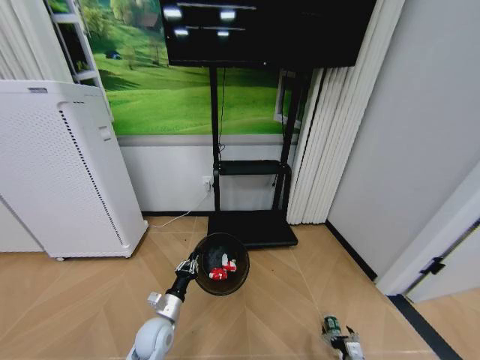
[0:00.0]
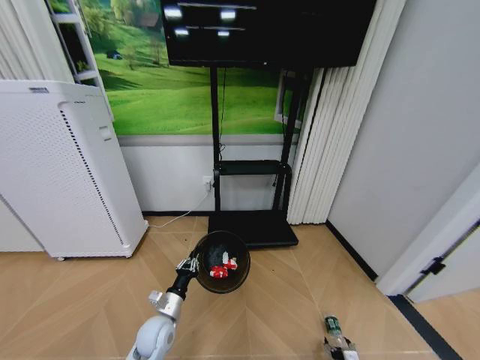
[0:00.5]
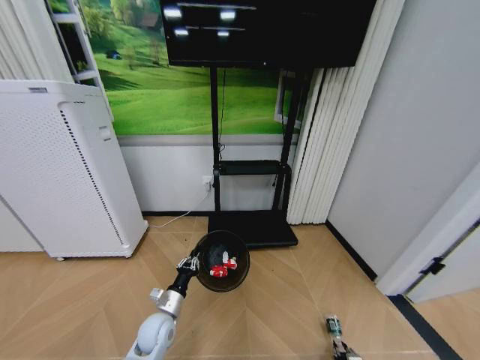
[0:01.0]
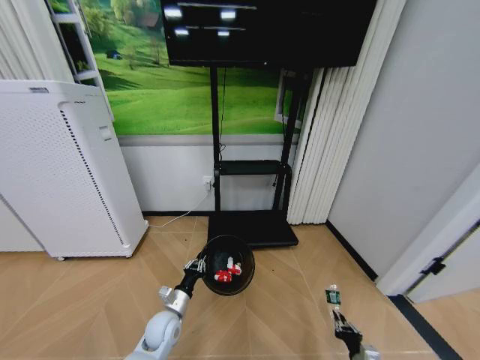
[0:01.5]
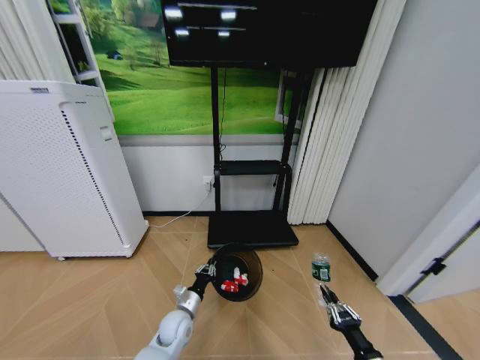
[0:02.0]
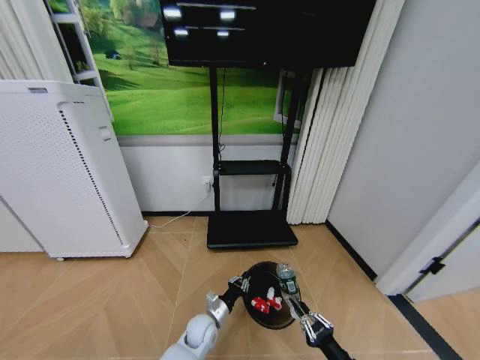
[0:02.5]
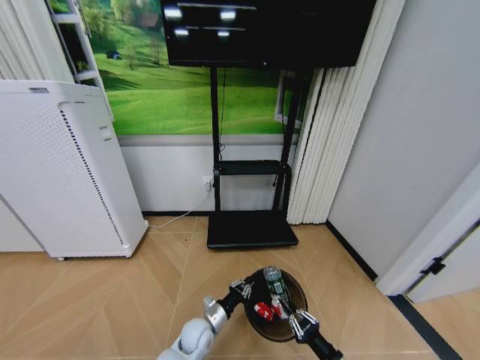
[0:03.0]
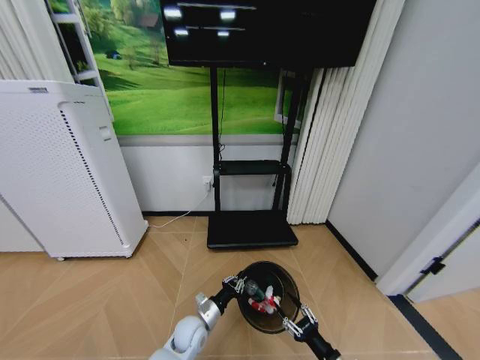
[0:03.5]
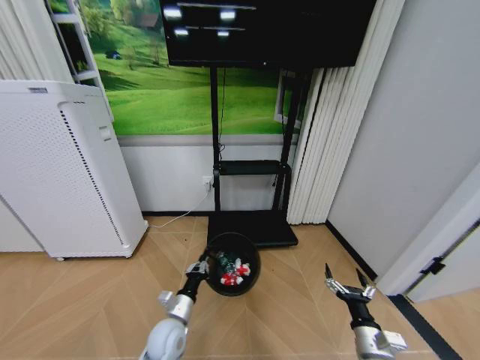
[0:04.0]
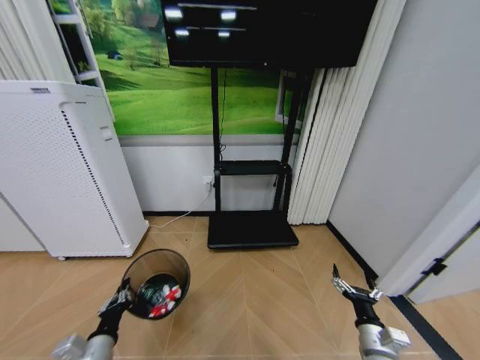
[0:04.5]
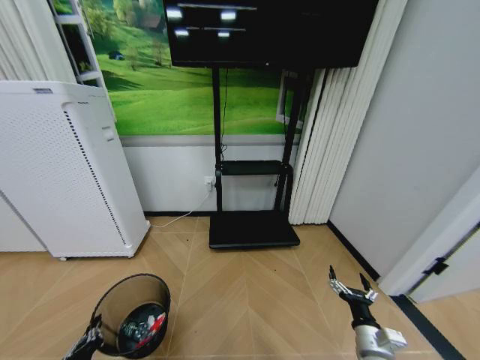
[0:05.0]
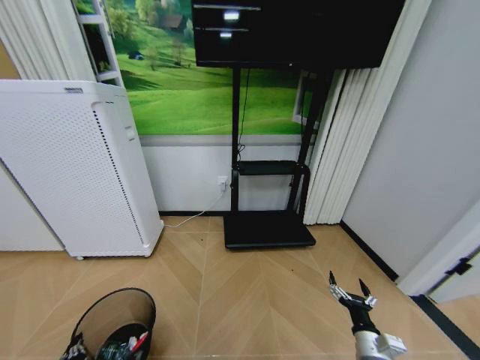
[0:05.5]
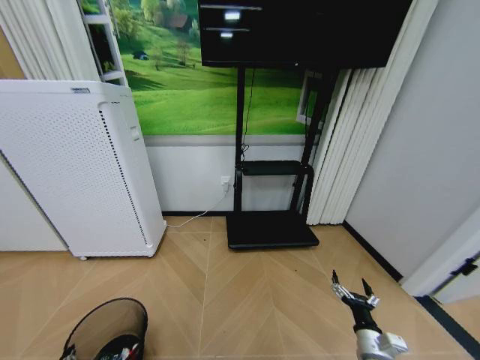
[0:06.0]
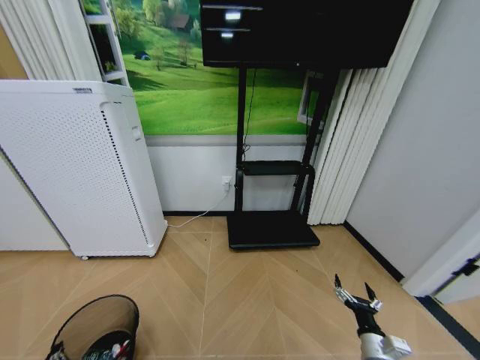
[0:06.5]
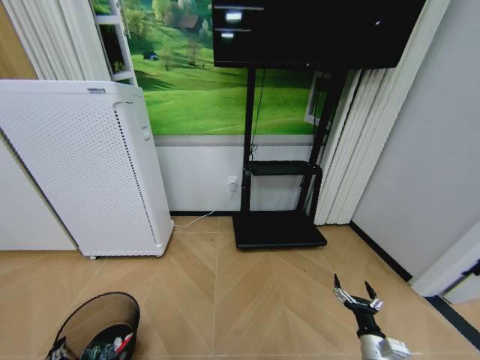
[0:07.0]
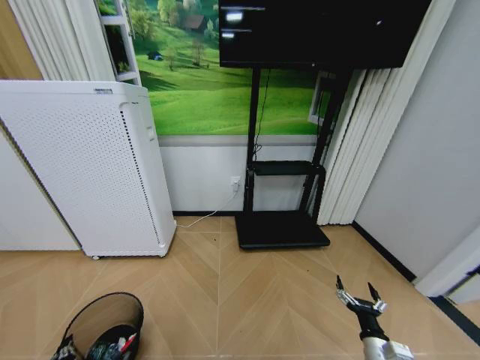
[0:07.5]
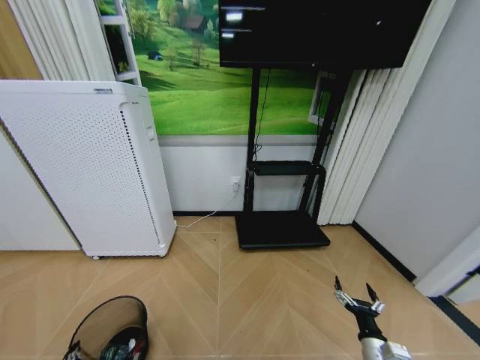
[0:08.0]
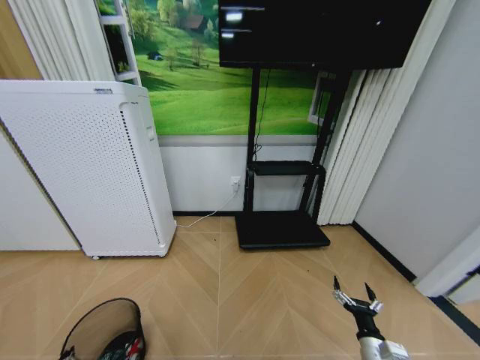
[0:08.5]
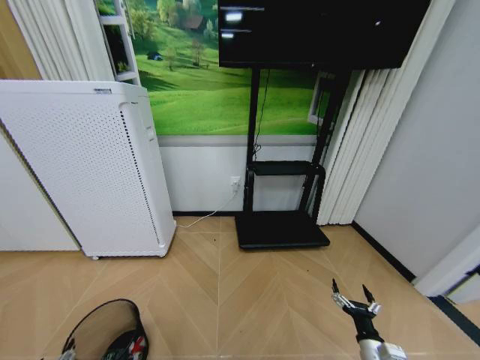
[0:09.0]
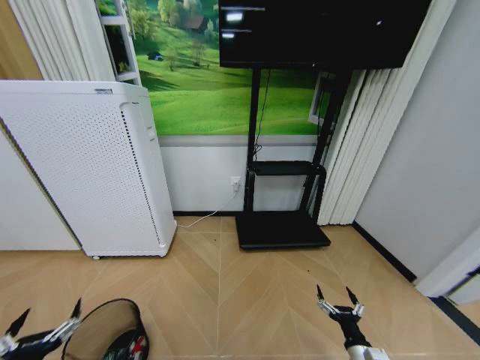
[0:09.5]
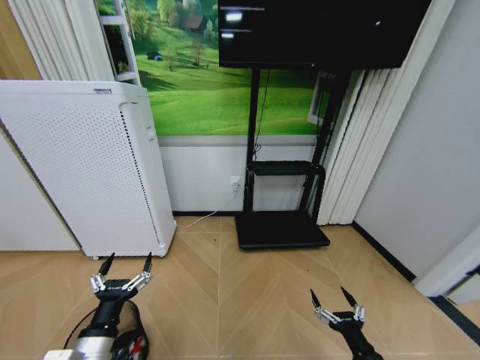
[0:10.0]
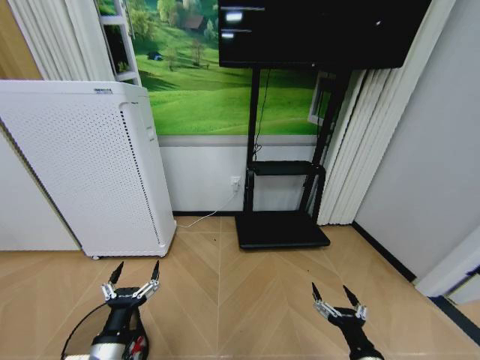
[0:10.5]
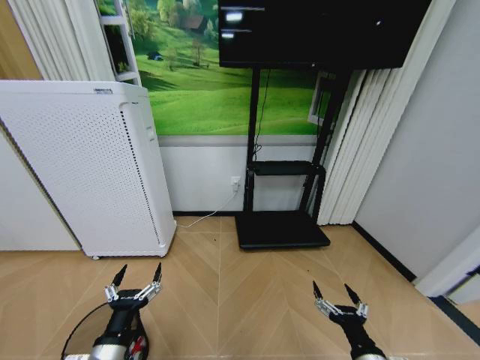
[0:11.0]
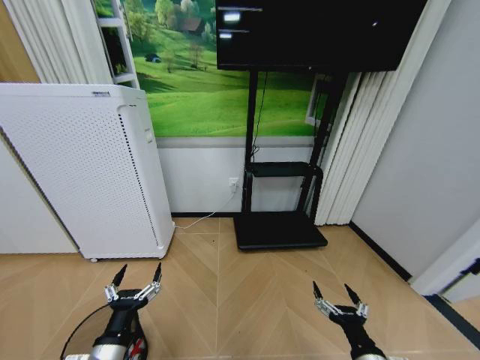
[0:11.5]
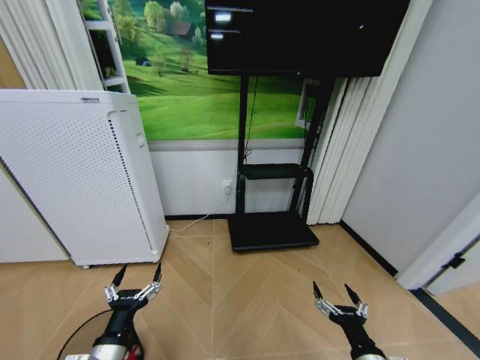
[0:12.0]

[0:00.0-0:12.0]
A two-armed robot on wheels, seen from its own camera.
Task of the whole recording: Pick up the trash bin and place the garbage on the floor into it.
0:00.0 to 0:02.0: The left gripper ends up some 5 cm from where it was. Meanwhile the right gripper goes some 15 cm upward and backward, and closes.
0:02.0 to 0:04.0: The right gripper shifts approximately 5 cm forward, and opens up. Meanwhile the left gripper heads upward, covering approximately 5 cm.
0:04.0 to 0:06.0: The left gripper heads to the left and backward, covering approximately 30 cm.
0:06.0 to 0:08.0: The left gripper ends up some 5 cm from where it was.
0:08.0 to 0:10.0: The right gripper travels upward, backward and to the left by roughly 10 cm. The left gripper shifts approximately 20 cm upward and to the right, and opens up.

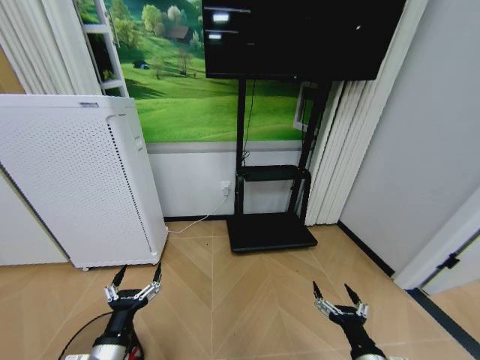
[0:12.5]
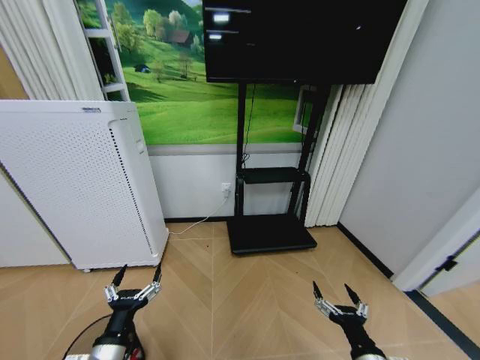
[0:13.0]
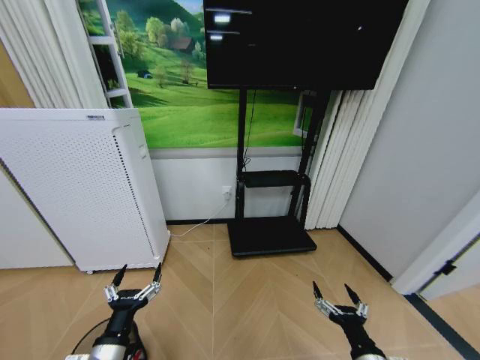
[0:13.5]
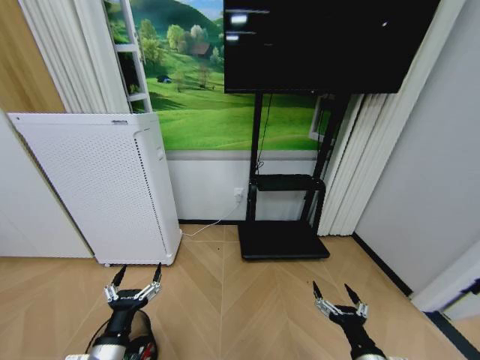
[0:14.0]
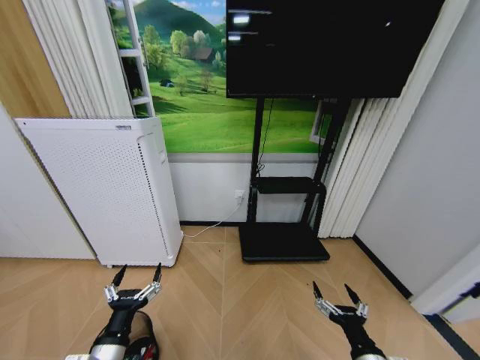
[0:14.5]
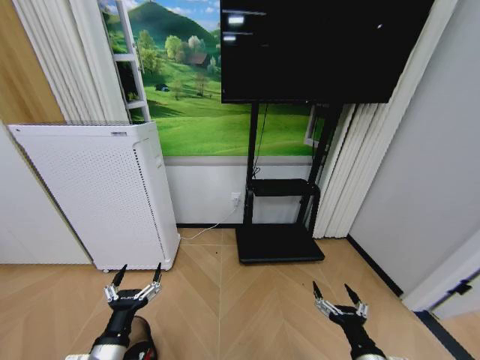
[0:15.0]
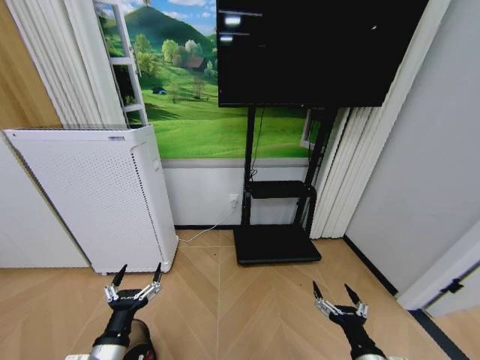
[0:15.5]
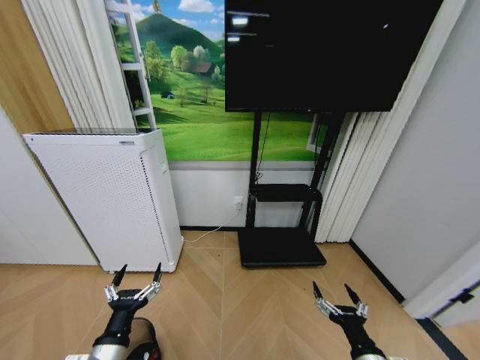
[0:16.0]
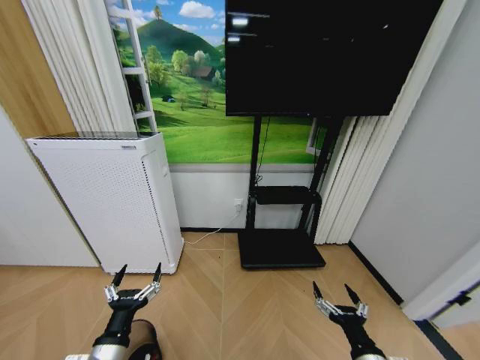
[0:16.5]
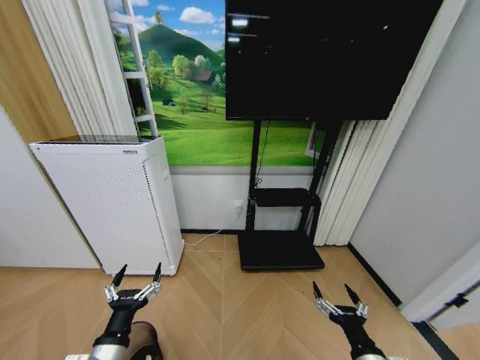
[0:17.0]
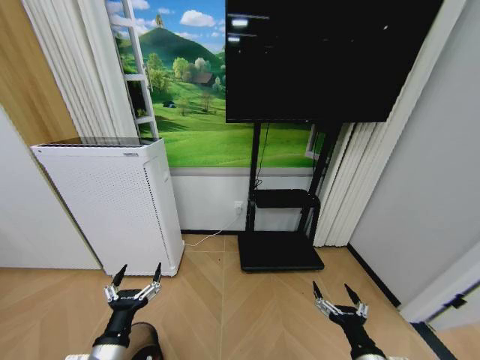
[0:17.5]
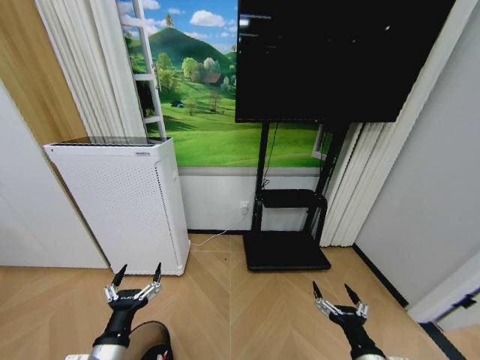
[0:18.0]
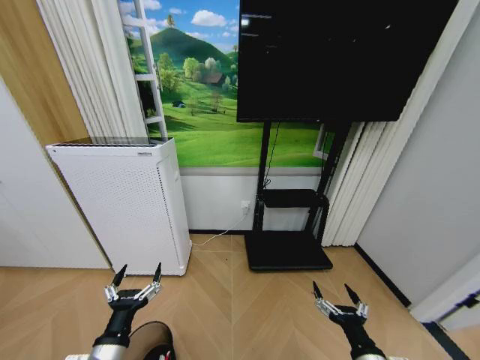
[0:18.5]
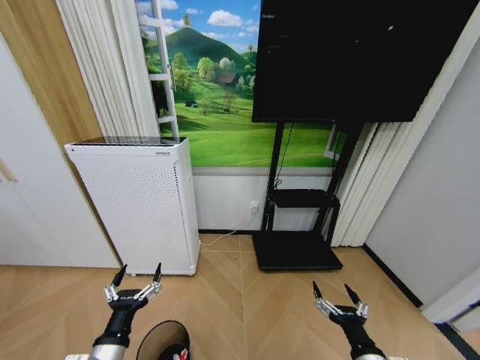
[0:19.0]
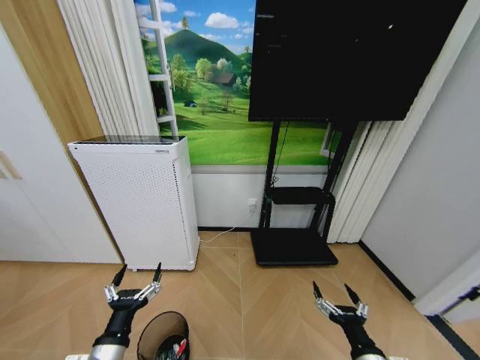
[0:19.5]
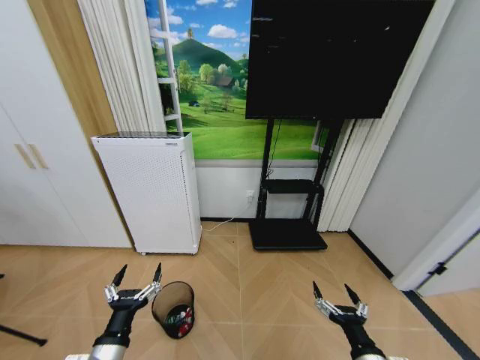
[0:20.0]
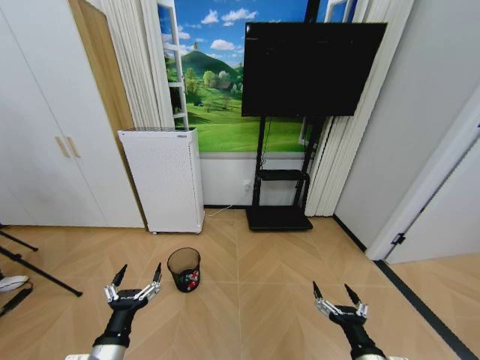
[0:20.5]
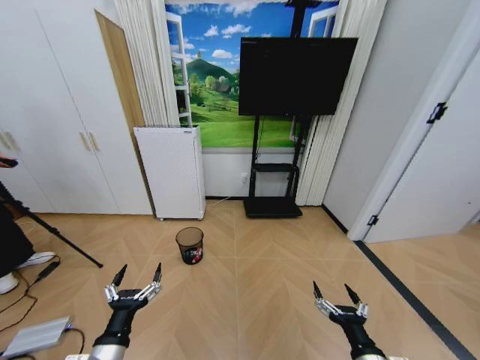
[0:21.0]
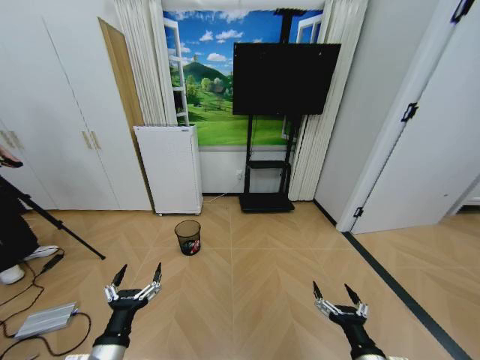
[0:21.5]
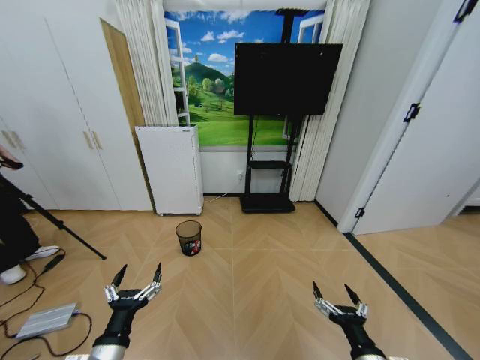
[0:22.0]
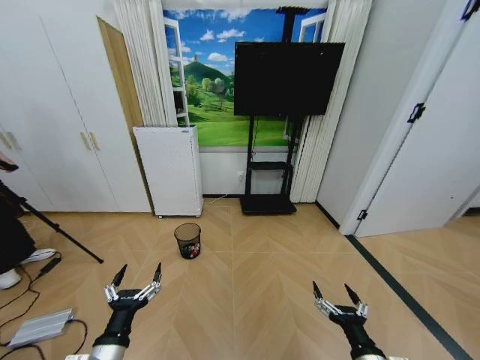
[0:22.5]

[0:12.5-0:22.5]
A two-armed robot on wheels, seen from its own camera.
Task of the whole recording: Pick up the trash bin and place the garbage on the floor into it.
0:14.5 to 0:16.5: The two grippers keep their place.
